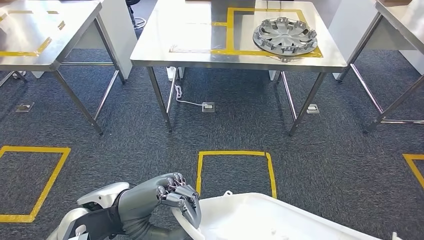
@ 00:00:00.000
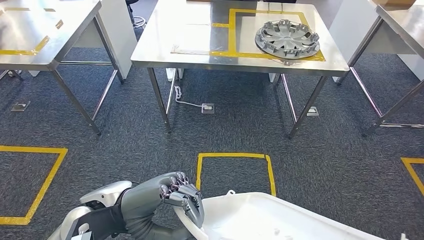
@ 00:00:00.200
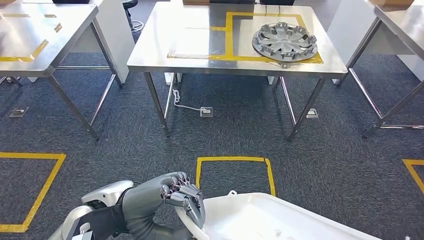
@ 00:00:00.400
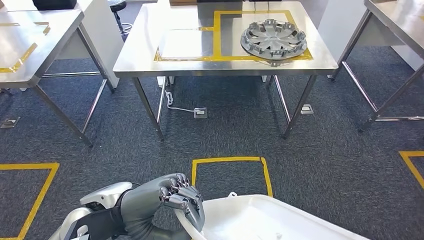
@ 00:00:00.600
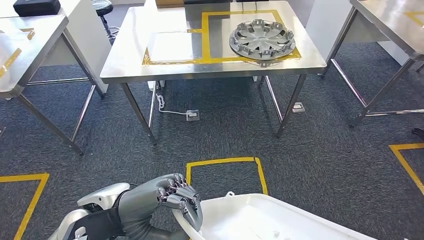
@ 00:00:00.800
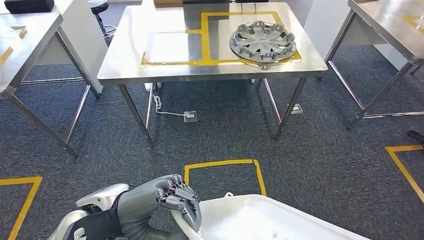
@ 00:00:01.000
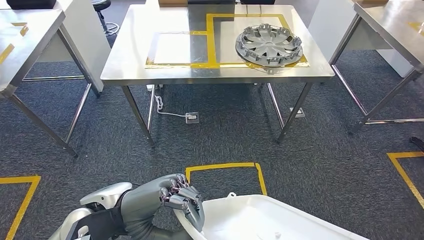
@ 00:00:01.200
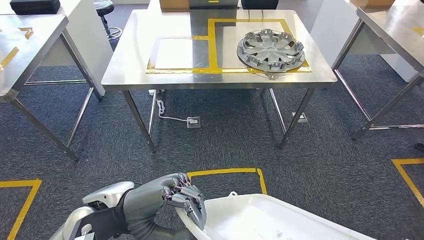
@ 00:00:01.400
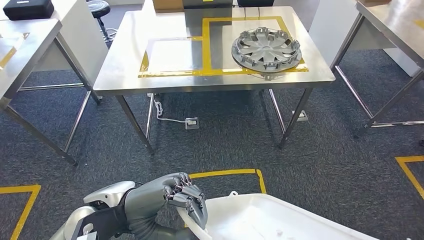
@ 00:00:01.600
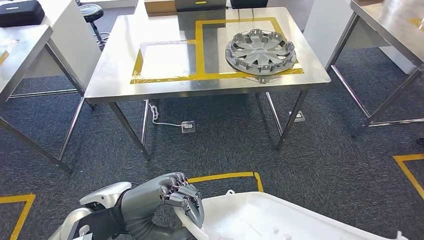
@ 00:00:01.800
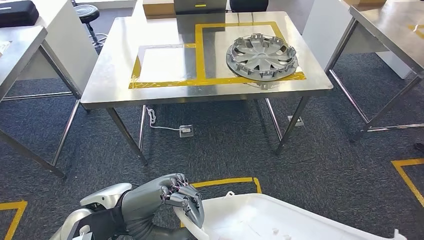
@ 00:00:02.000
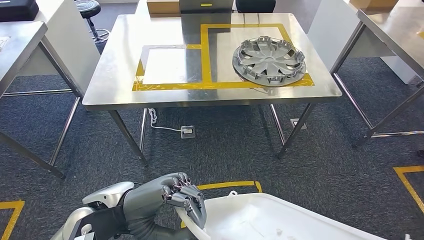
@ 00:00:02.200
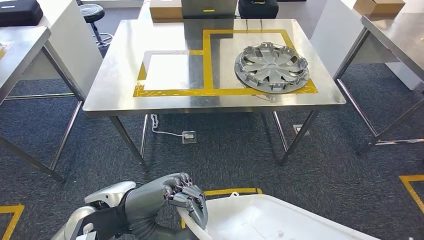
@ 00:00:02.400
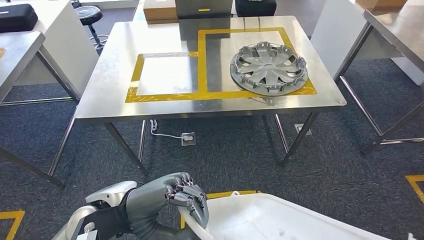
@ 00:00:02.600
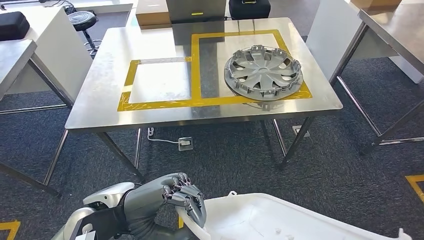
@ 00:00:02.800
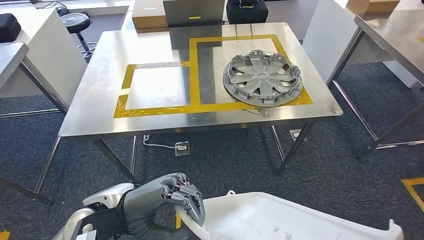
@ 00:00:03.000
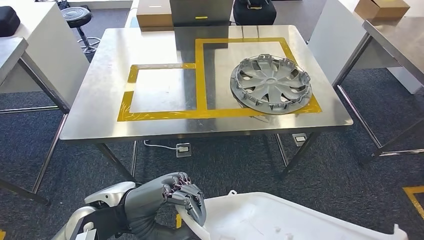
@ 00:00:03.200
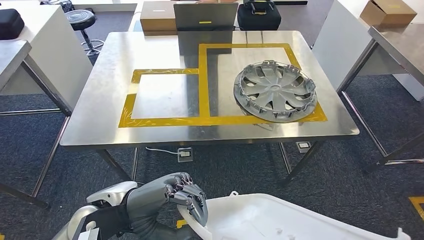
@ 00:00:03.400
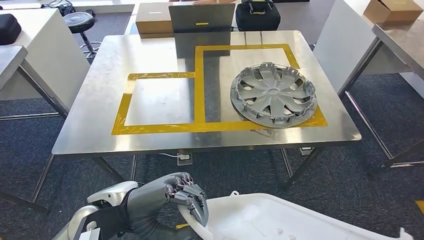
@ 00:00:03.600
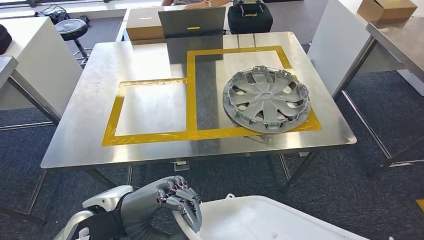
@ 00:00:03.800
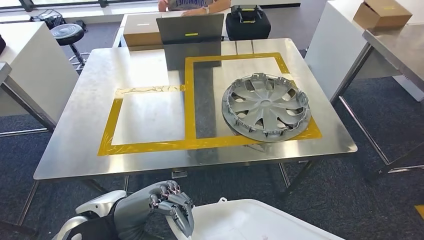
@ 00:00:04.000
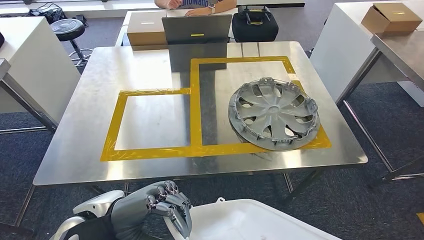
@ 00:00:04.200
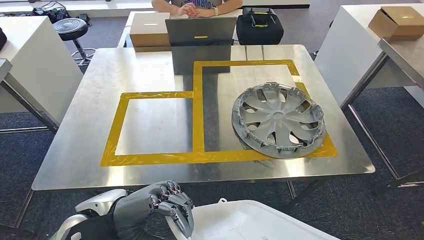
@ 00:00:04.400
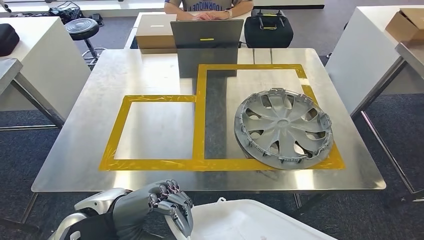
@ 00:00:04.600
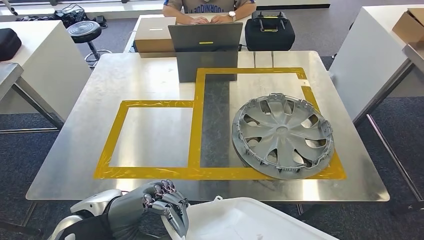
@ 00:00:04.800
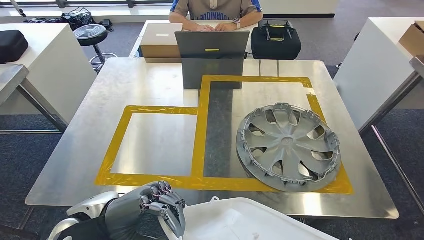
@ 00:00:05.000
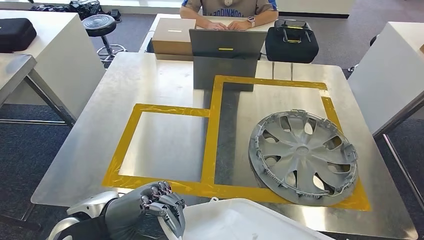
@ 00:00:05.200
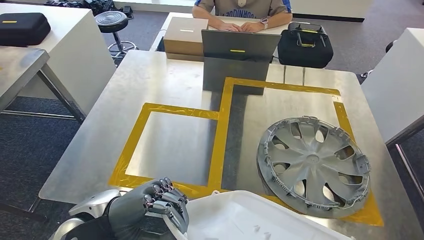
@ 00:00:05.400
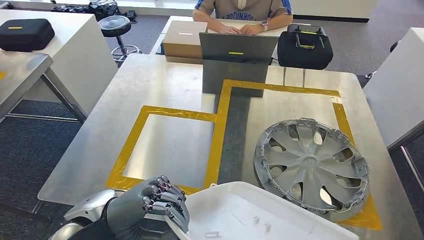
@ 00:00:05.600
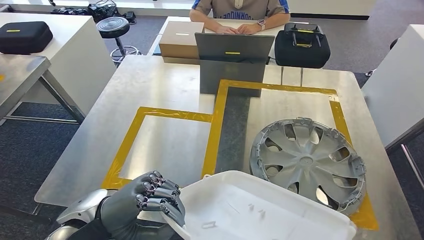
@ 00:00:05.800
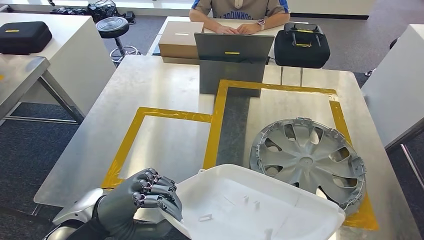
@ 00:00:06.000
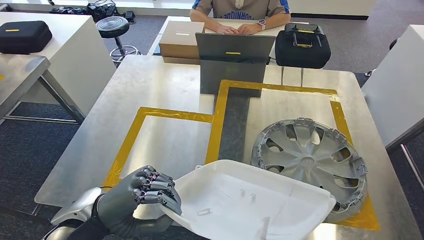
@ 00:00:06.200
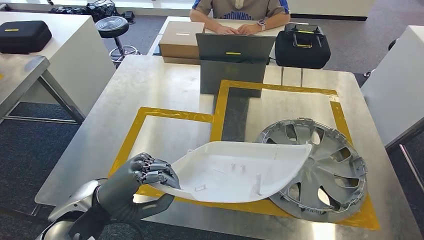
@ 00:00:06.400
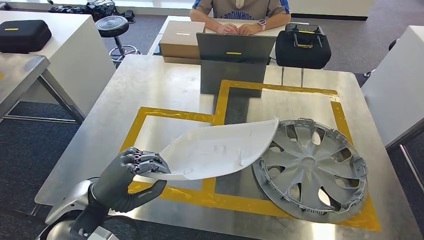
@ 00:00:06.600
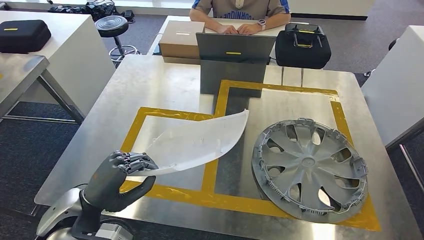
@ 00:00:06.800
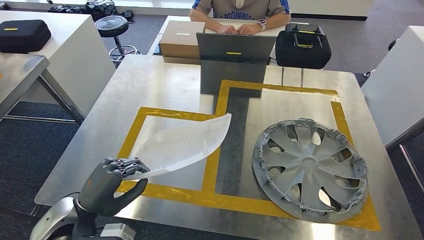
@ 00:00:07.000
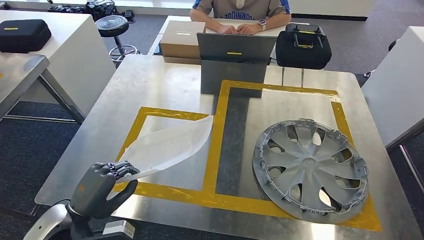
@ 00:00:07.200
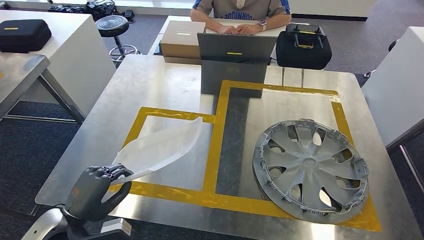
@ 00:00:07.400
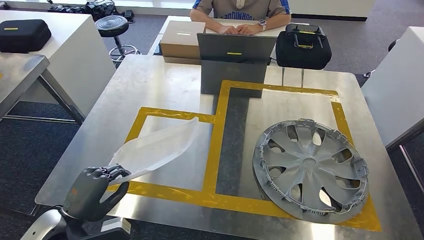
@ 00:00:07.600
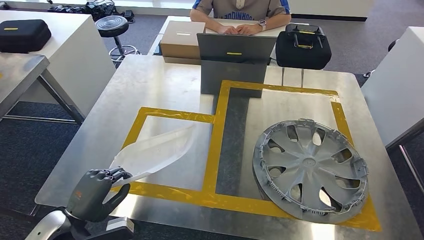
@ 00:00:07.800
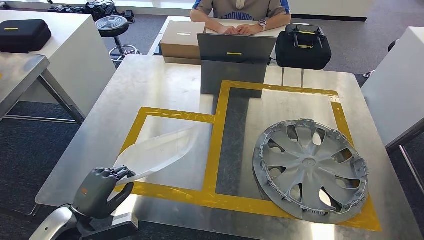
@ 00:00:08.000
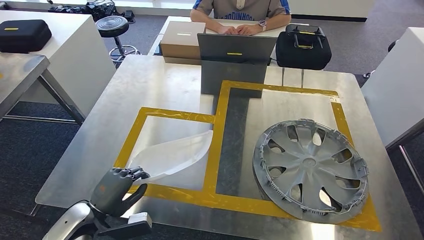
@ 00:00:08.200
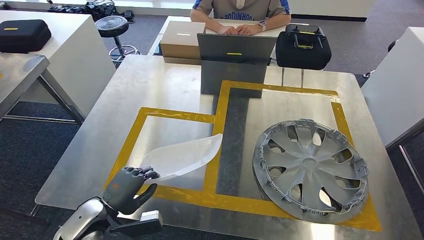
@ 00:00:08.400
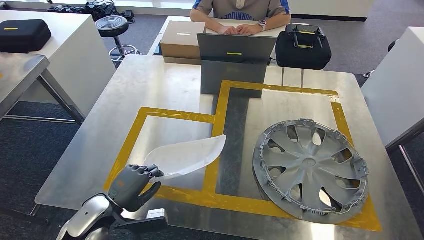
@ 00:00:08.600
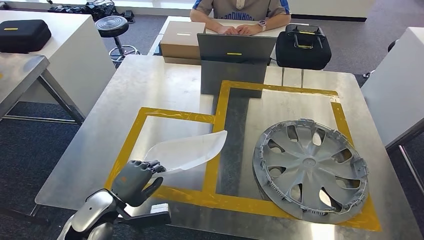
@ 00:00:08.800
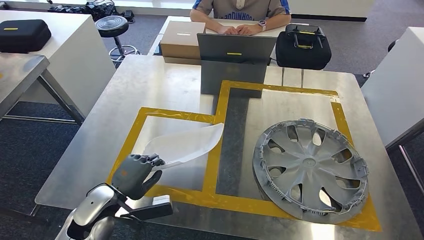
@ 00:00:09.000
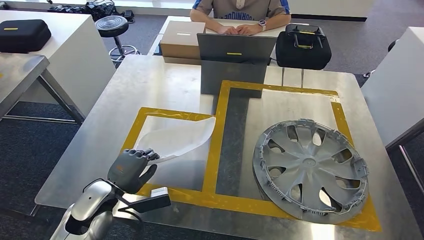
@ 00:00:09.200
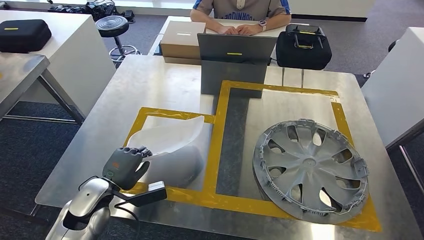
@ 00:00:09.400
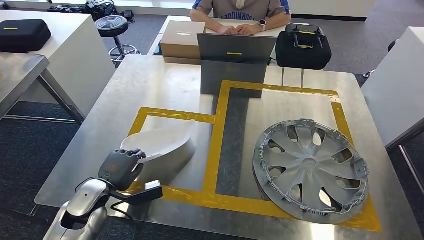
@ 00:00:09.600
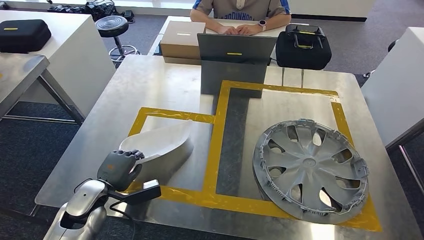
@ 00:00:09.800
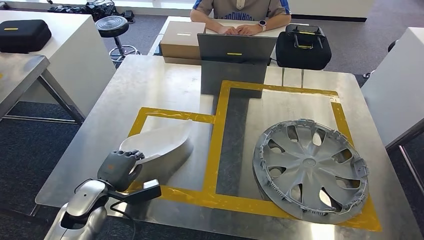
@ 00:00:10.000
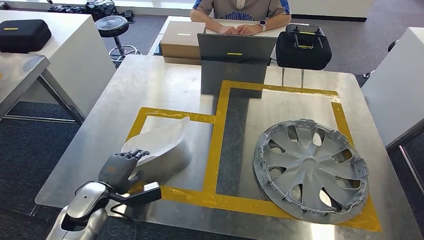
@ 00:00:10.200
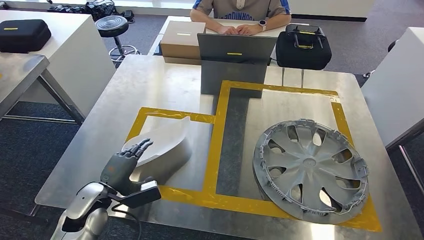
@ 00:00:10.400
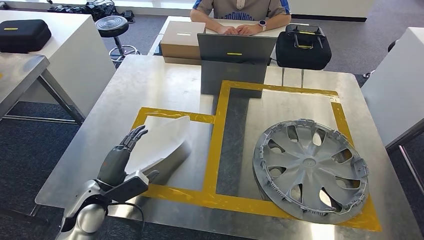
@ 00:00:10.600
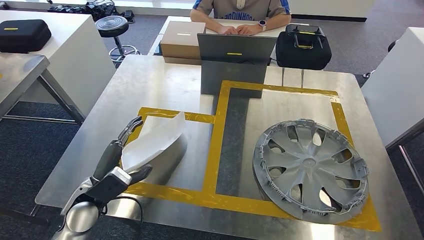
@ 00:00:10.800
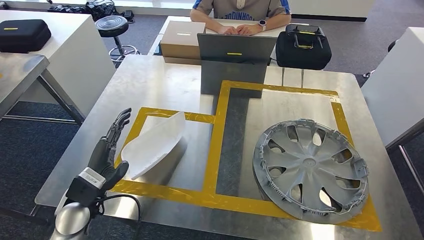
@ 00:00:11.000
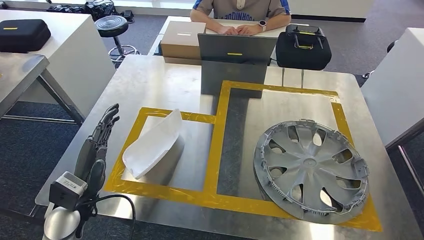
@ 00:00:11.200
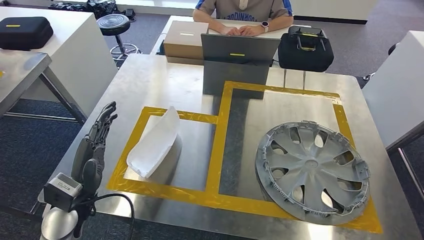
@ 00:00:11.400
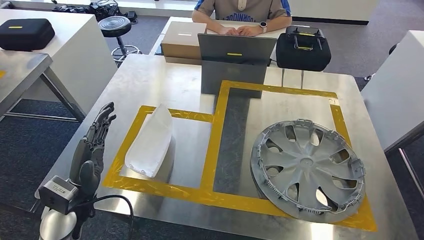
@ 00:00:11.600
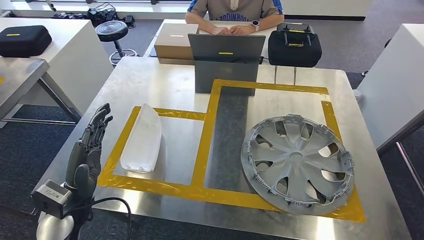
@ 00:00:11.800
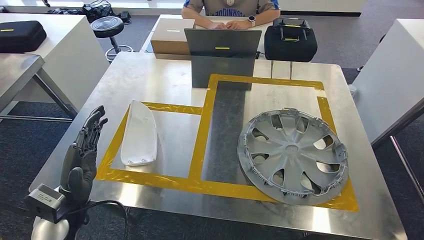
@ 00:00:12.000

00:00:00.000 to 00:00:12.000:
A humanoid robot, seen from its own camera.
Step, 00:00:00.000 to 00:00:05.800: Move the small component to the workbench.
Step, 00:00:06.000 to 00:00:10.800: Insert the small component into the corresponding slot on the workbench.
00:00:07.600 to 00:00:09.000: The left hand travels forward and to the right by approximately 10 cm.
00:00:09.000 to 00:00:10.400: The hands stay close to where they were, moving slightly.

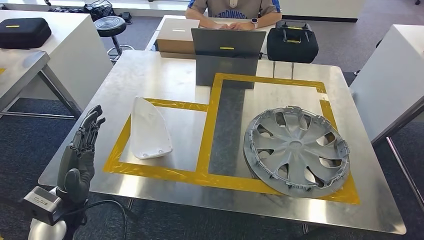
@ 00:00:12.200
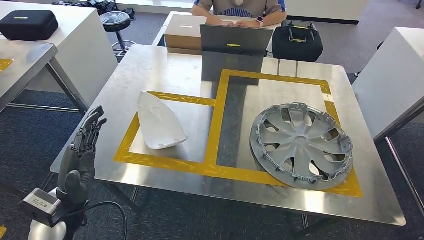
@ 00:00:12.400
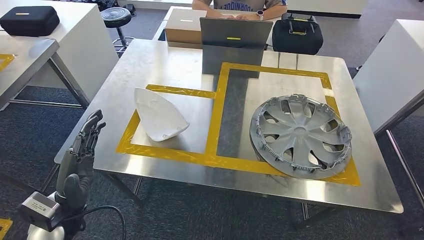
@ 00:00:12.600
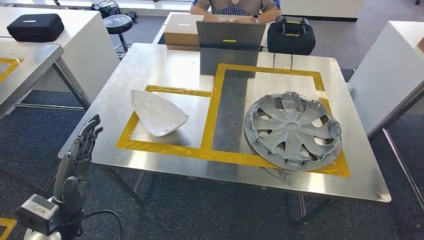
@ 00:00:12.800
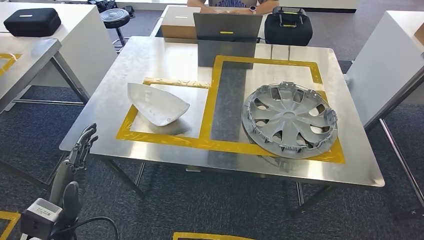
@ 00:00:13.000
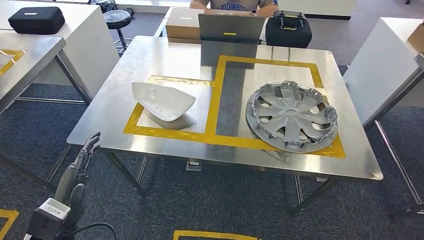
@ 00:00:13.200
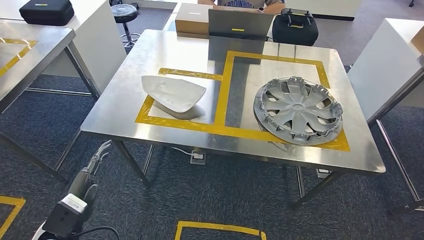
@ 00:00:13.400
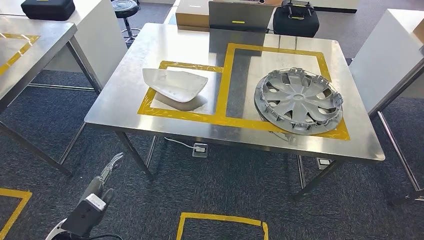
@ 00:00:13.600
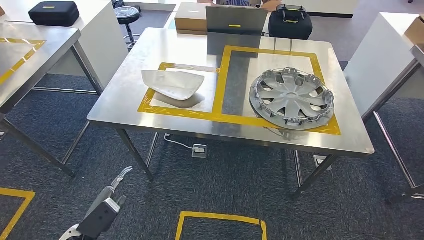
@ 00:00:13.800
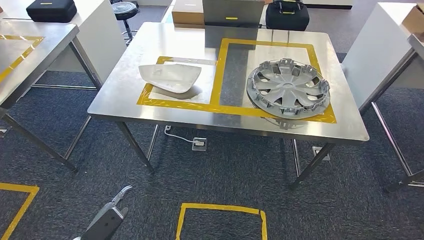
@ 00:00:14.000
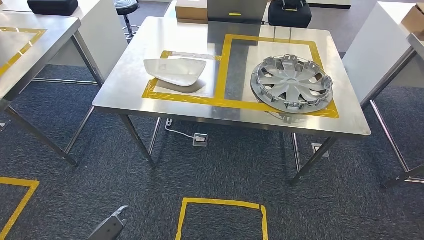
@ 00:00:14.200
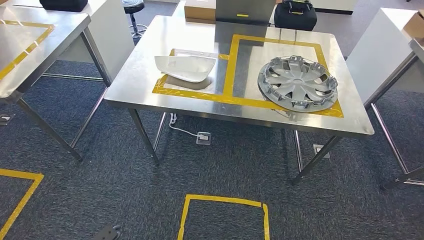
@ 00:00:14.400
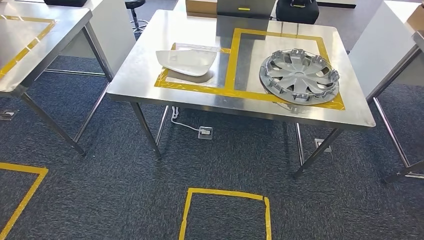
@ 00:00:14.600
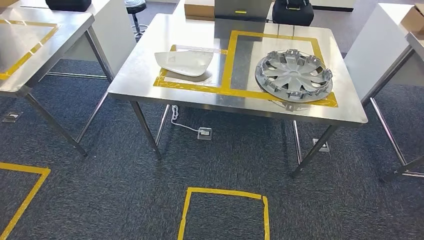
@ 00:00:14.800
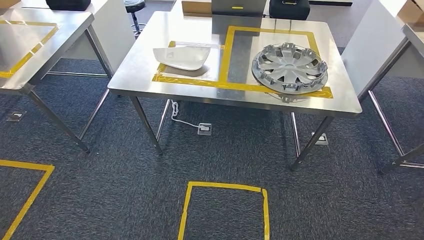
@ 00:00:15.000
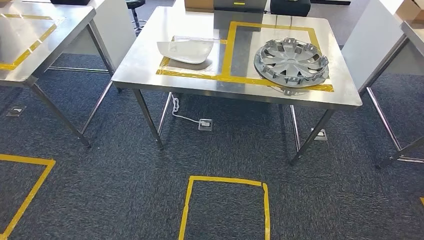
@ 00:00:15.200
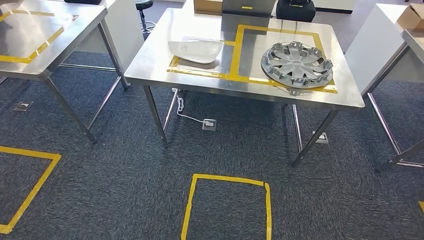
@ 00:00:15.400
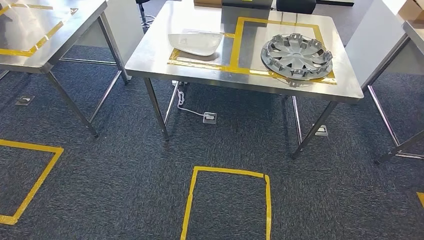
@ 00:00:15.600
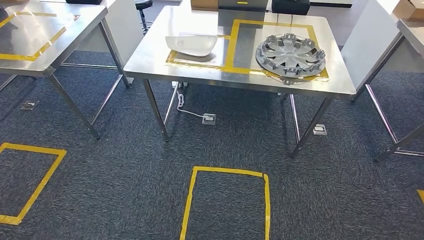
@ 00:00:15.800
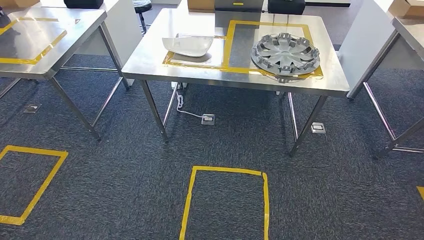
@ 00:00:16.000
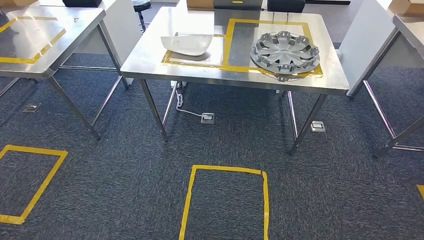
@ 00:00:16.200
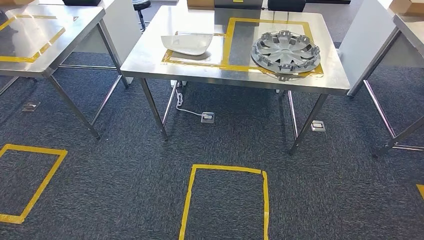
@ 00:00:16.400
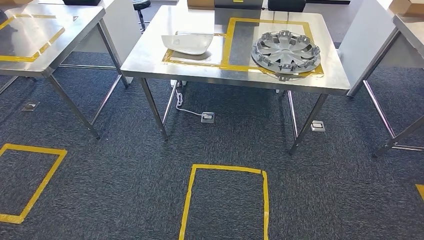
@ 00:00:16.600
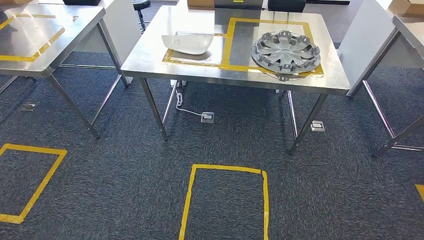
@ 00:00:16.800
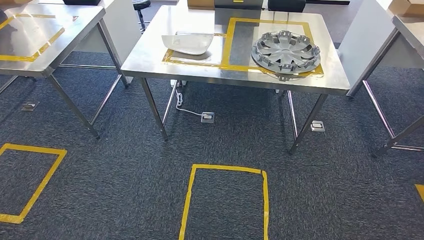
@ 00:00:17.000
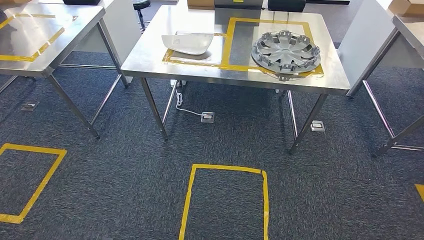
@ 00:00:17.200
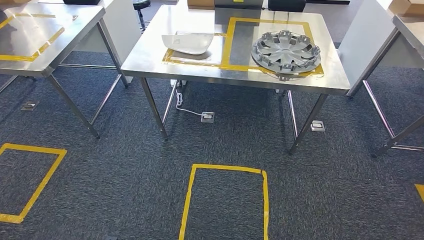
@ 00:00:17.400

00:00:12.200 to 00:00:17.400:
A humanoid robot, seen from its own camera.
Step, 00:00:12.200 to 00:00:17.400: Move to the initial position at the workbench.
00:00:15.600 to 00:00:17.400: The left hand changes place by some 5 cm.
